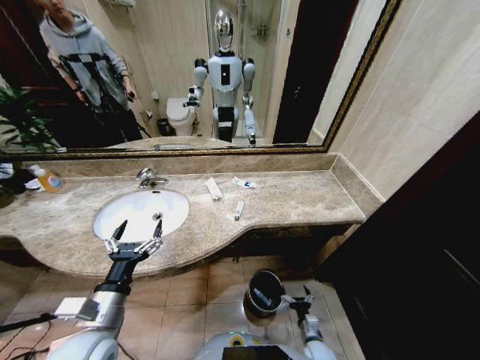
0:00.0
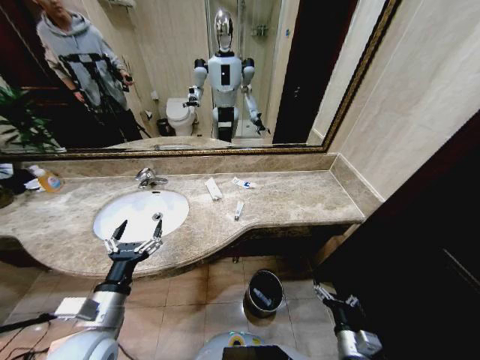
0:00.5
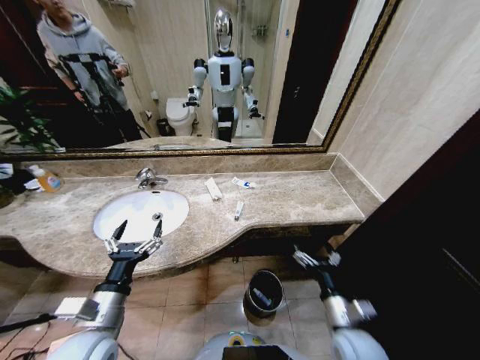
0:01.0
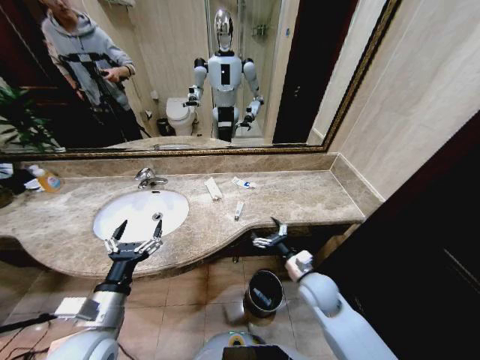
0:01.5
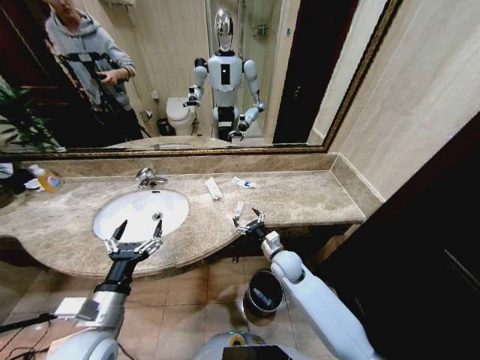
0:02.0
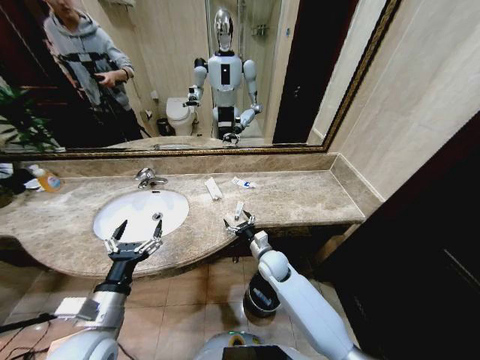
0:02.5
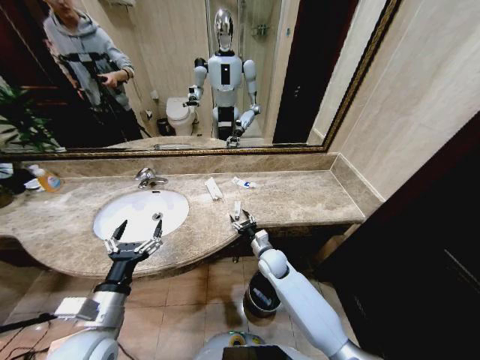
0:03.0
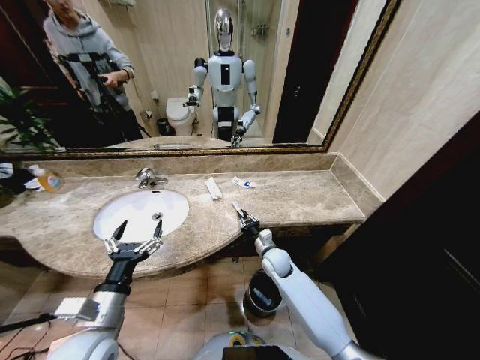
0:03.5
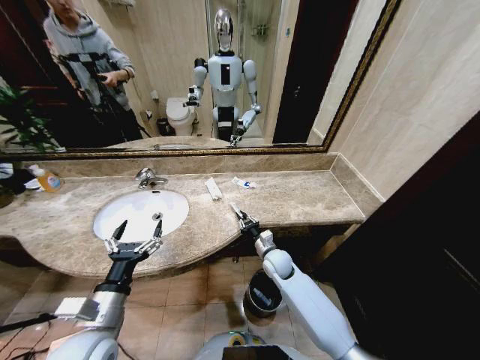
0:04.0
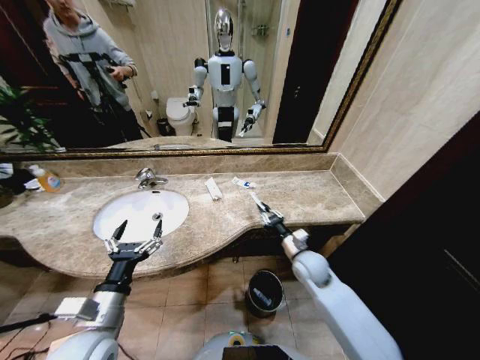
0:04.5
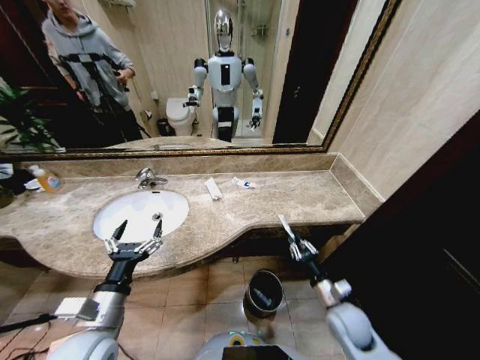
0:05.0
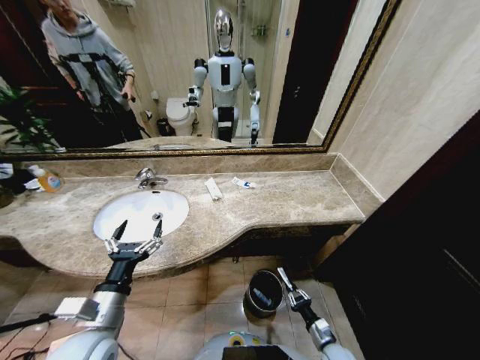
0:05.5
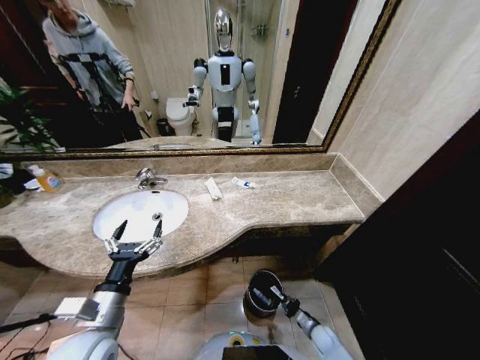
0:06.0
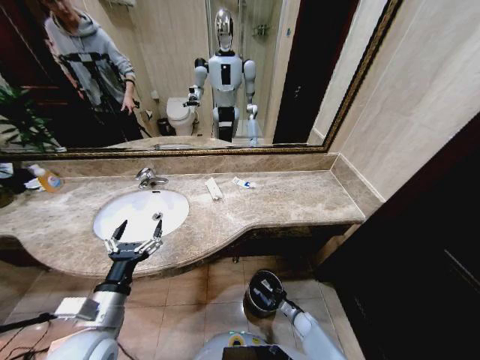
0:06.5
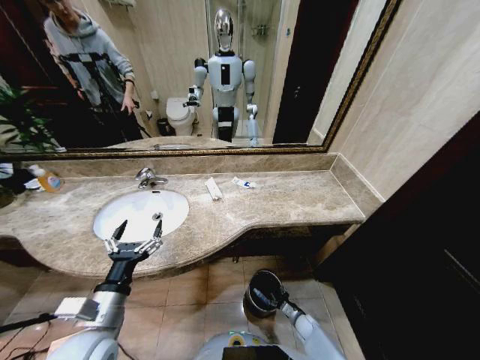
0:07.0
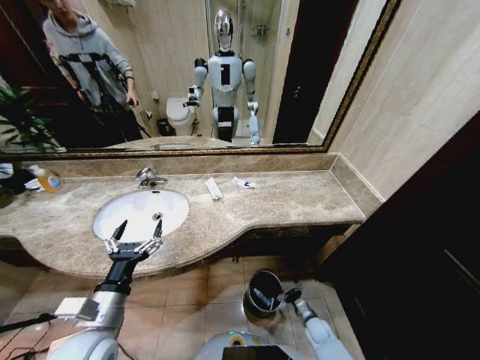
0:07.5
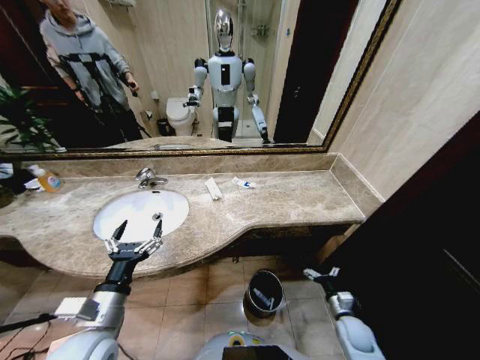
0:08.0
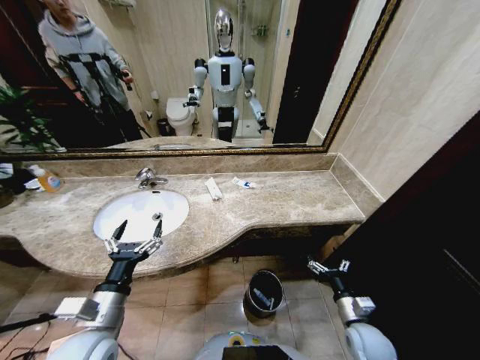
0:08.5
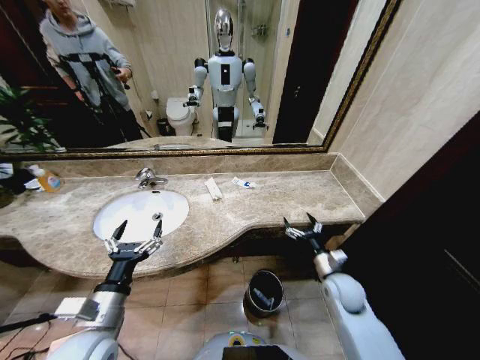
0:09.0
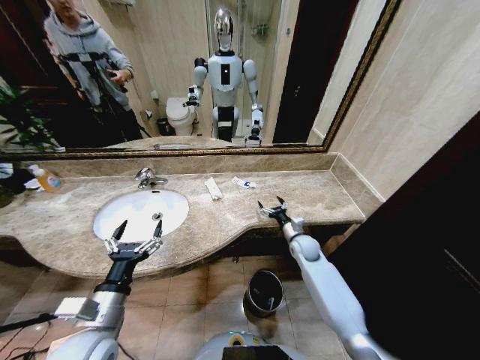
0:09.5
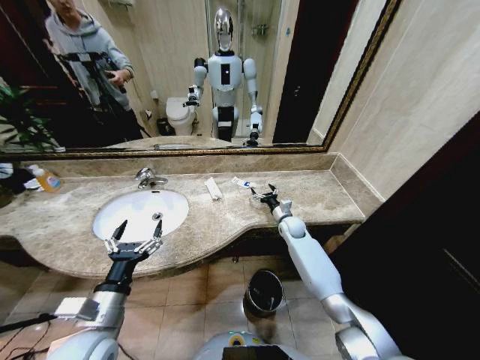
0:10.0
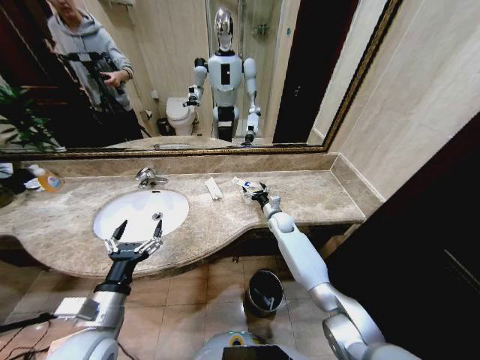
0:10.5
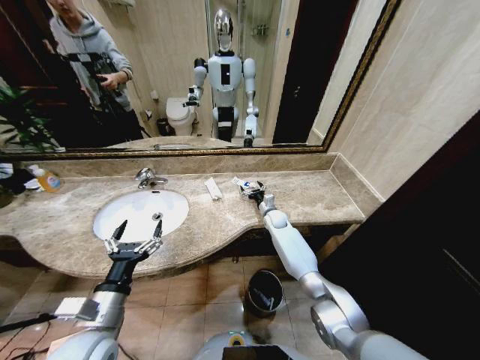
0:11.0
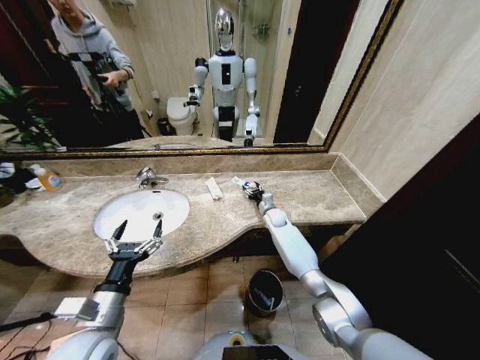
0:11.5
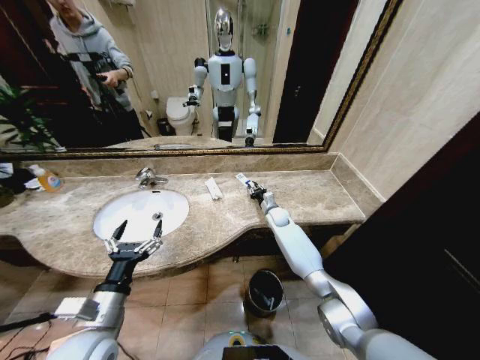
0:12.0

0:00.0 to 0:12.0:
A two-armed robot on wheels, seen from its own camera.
Task of the whole recording: Pick up the trash from the sink and place it in the trash bin.
0:00.0 to 0:02.0: The right gripper is displaced upward, forward and to the left by roughly 30 cm.
0:02.0 to 0:04.0: The right gripper closes up.
0:04.0 to 0:06.0: The right gripper heads downward, to the right and backward, covering roughly 35 cm.
0:06.0 to 0:08.0: The right gripper goes about 15 cm upward, and opens its fingers.
0:08.0 to 0:10.0: The right gripper shifts some 35 cm forward, upward and to the left.
0:10.0 to 0:12.0: The right gripper goes about 5 cm forward, and closes up.

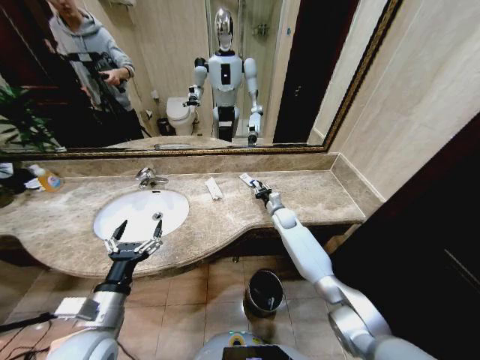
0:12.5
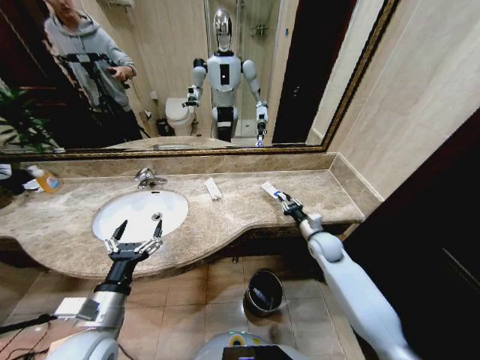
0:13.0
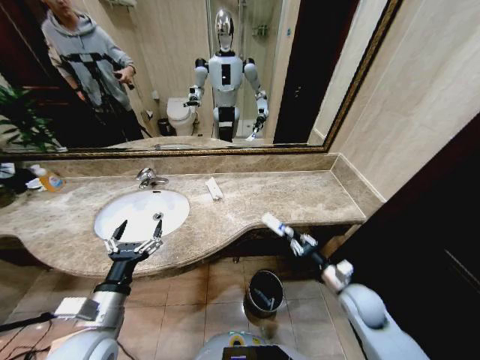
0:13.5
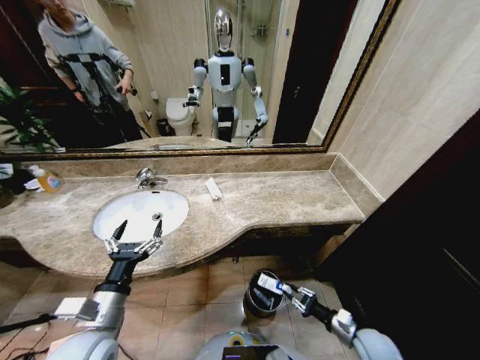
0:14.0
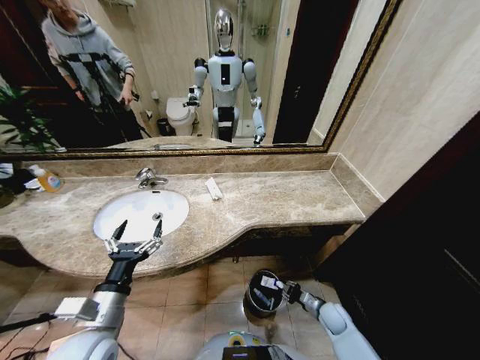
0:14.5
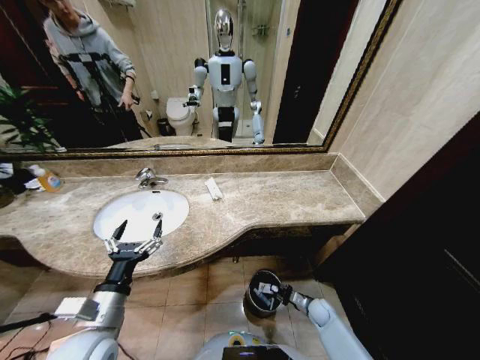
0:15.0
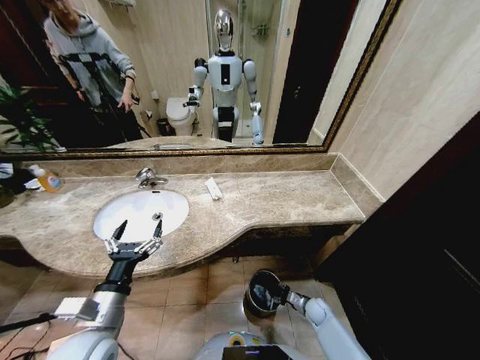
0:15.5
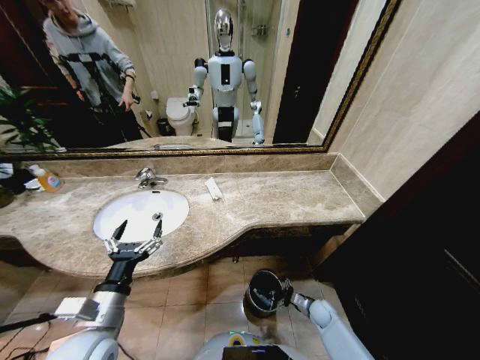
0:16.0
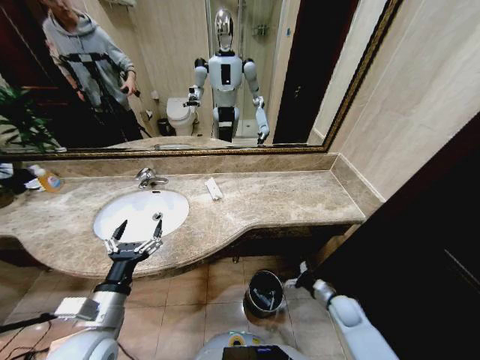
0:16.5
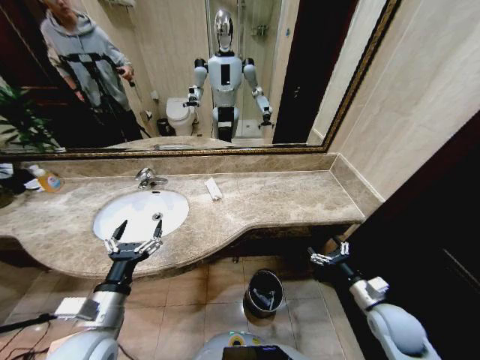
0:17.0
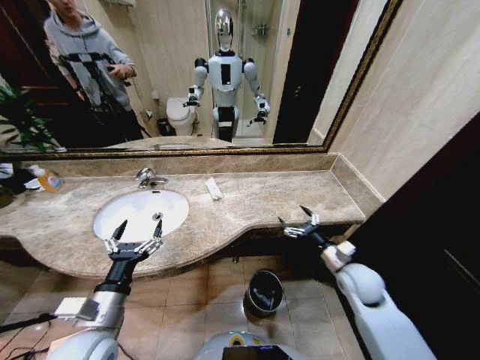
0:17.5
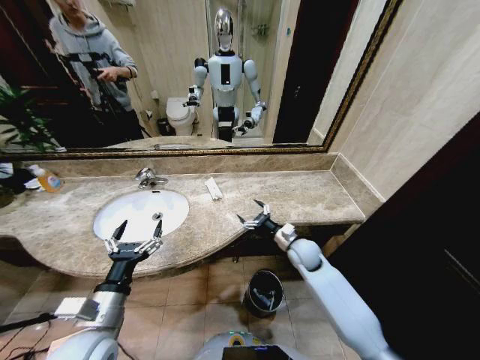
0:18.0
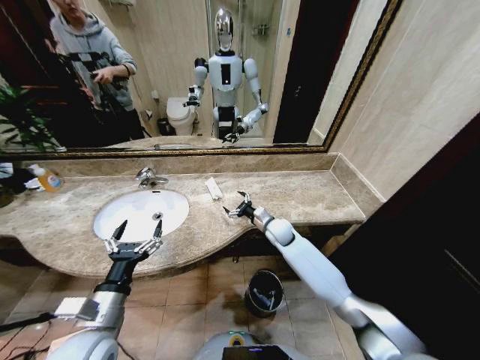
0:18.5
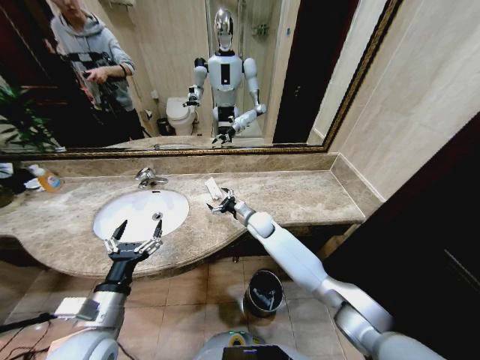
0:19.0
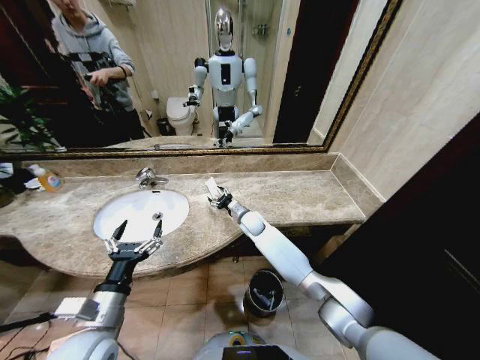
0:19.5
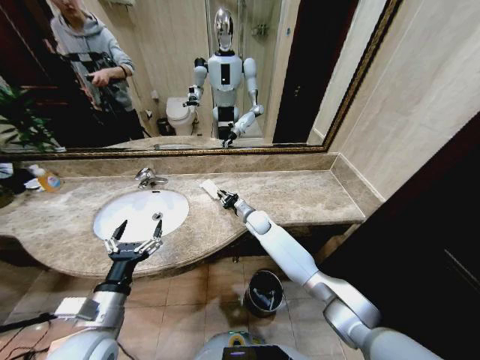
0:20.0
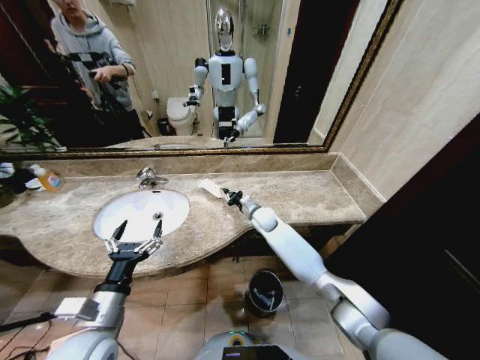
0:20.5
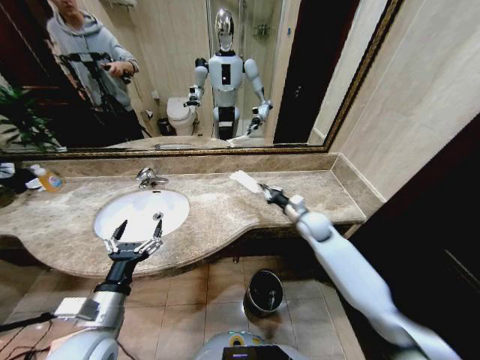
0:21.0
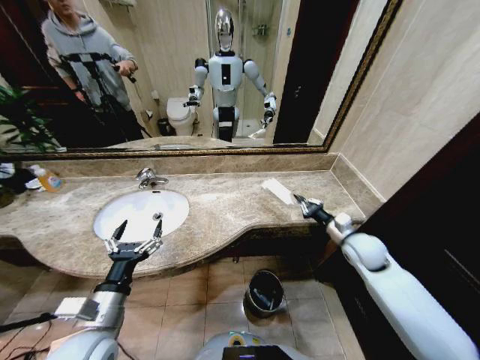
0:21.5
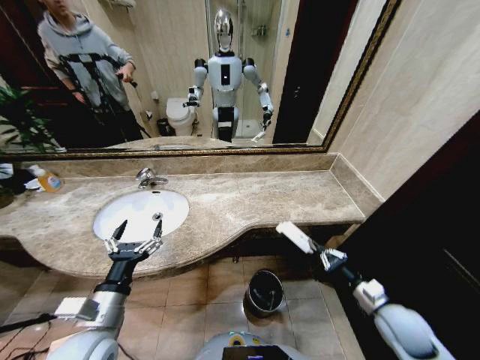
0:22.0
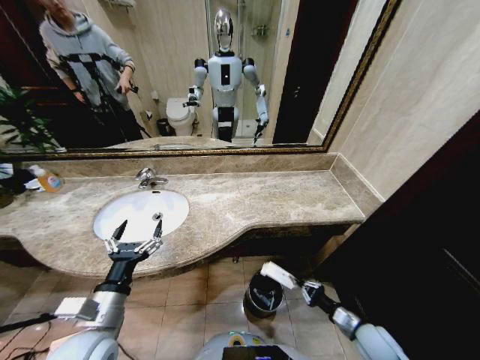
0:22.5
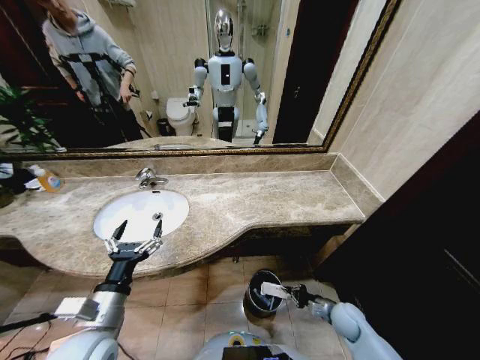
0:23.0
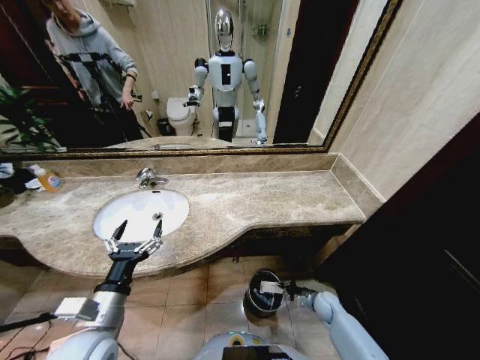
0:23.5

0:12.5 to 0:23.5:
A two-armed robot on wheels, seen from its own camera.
Task of the whole recording: Pick up the trash from the sink and place it in the trash bin.
0:12.5 to 0:14.5: The right gripper moves backward, downward and to the right, roughly 40 cm.
0:14.5 to 0:16.0: The right gripper goes about 5 cm downward, and opens its fingers.
0:16.0 to 0:18.0: The right gripper heads upward, forward and to the left, covering approximately 30 cm.
0:18.0 to 0:20.0: The right gripper goes approximately 20 cm forward and to the left, and closes up.
0:20.0 to 0:21.5: The right gripper travels to the right and backward by some 35 cm.
0:21.5 to 0:23.5: The right gripper shifts roughly 30 cm downward.

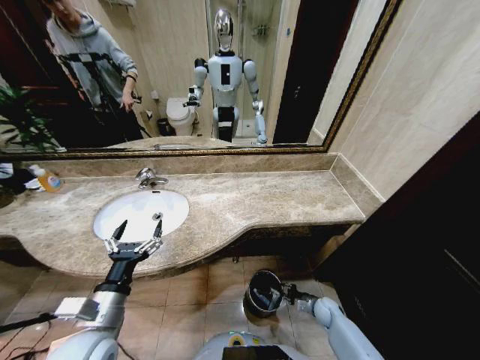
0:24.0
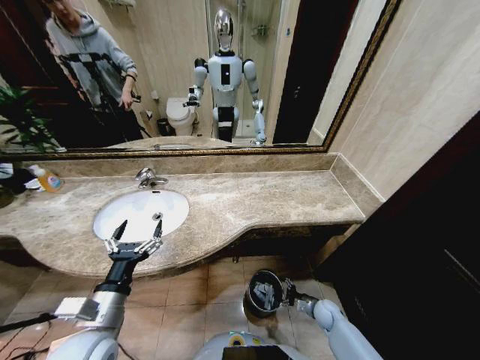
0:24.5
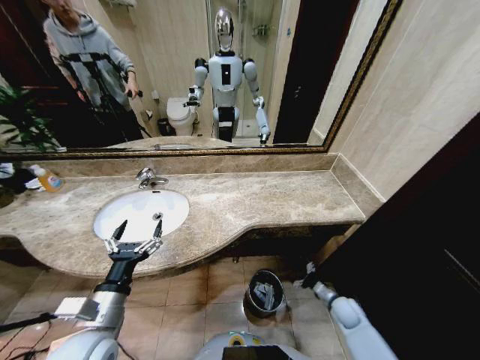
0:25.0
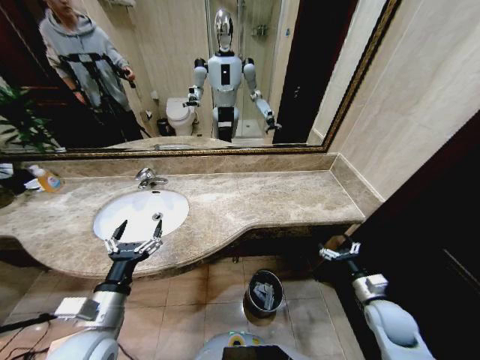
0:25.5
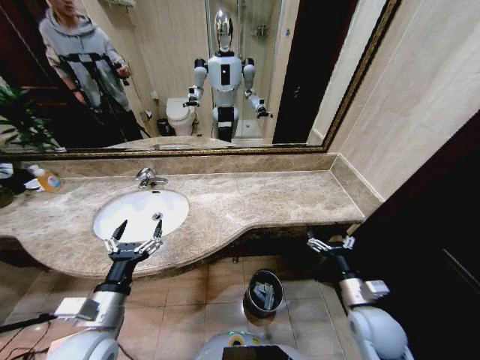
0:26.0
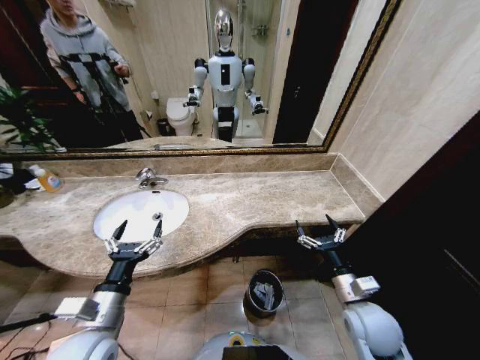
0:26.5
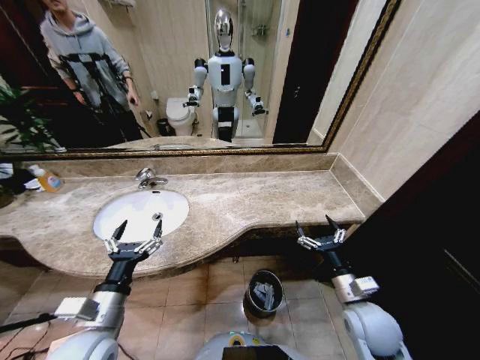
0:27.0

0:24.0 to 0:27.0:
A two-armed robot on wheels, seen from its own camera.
Task of the whole recording: Pick up the trash from the sink and place it in the trash bin.
0:24.0 to 0:25.5: The right gripper moves upward, roughly 20 cm, and opens.
0:25.5 to 0:27.0: The right gripper travels to the left and upward by about 15 cm.
